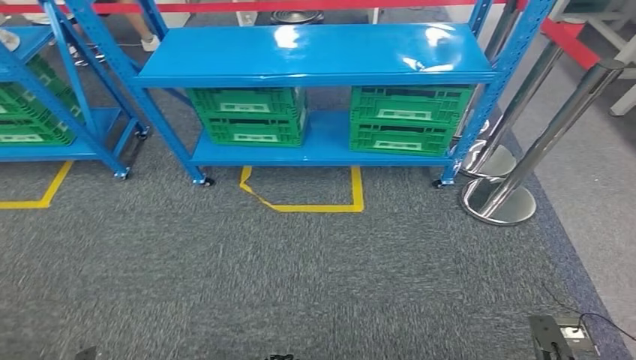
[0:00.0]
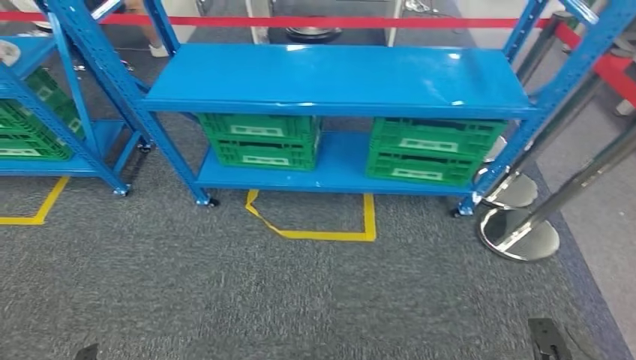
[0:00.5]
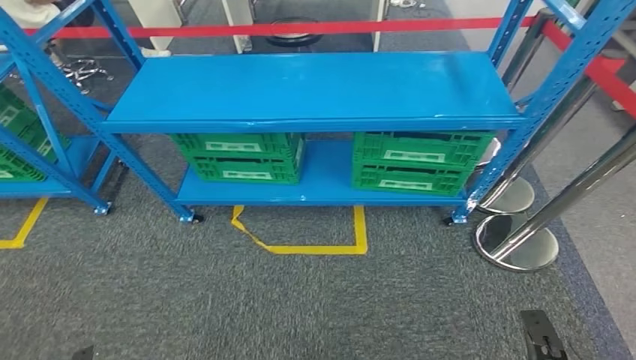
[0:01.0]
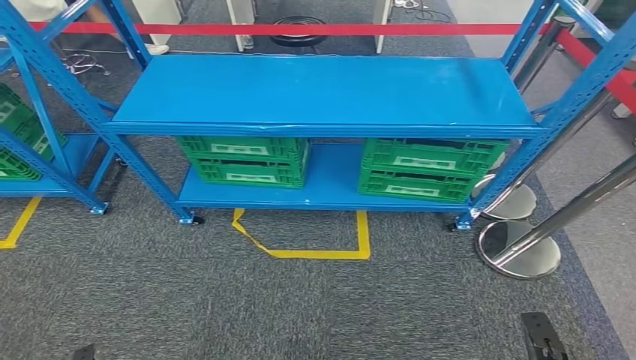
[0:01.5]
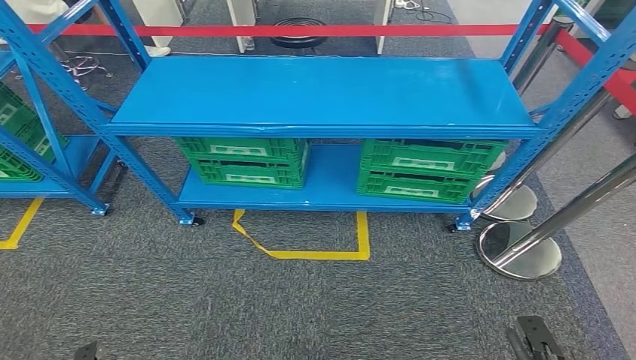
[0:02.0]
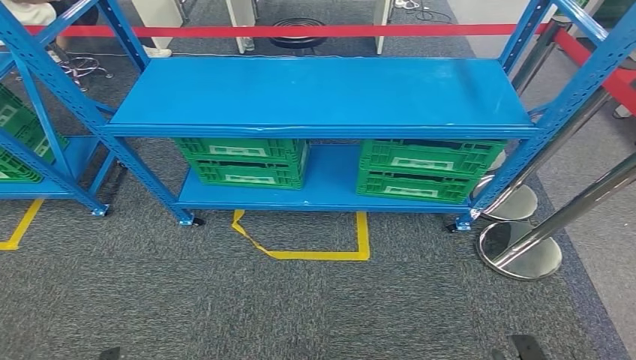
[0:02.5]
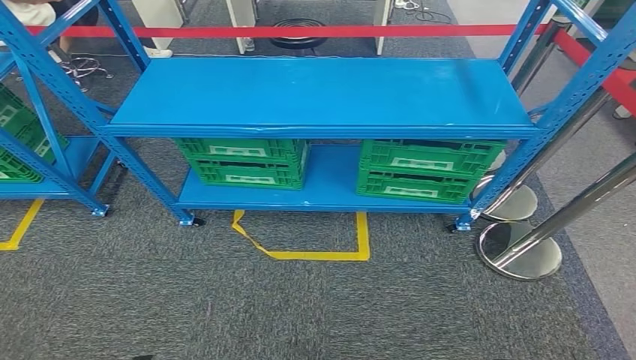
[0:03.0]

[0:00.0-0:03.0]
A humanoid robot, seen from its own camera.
Step, 0:00.0 to 0:03.0: Return to the initial position at the workbench.
0:01.5 to 0:03.0: The left hand shifts approximately 5 cm to the right. Meanwhile the right hand goes approximately 10 cm backward and to the left.
